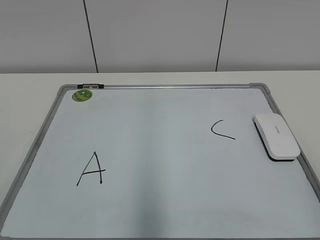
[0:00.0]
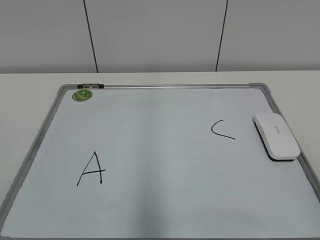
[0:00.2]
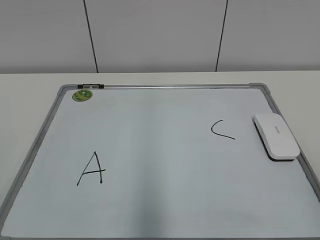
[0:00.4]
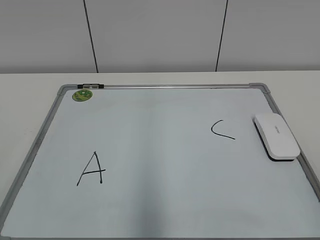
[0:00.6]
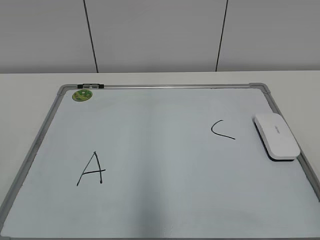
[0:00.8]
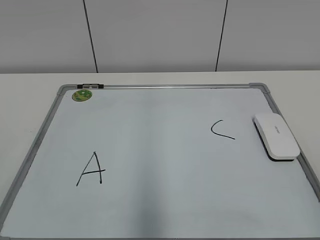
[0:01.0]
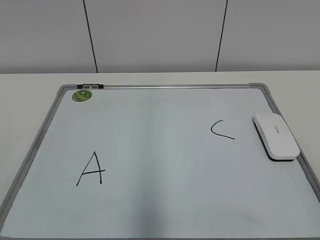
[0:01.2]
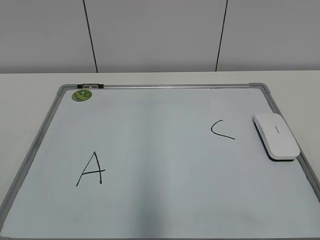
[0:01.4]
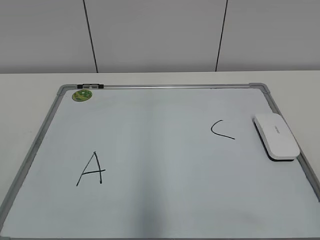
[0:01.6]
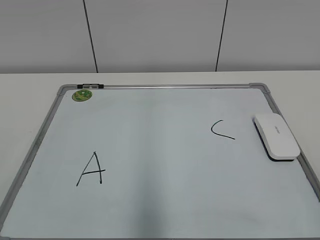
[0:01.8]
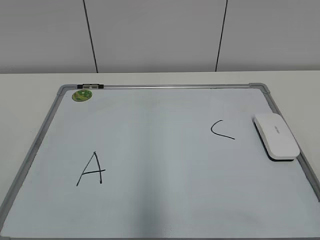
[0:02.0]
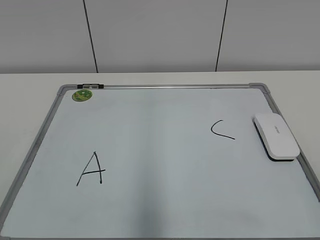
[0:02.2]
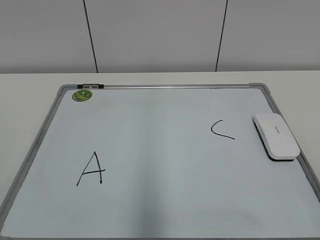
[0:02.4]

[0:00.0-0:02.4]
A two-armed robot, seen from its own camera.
Task of the whole recording: pick up the eraser on the blackboard and erase the letter "B".
0:00.0 to 0:01.2: The two grippers keep their place.

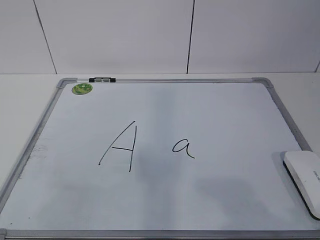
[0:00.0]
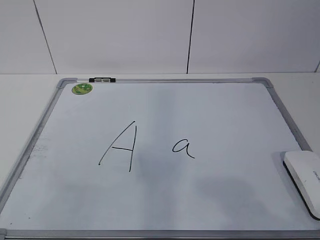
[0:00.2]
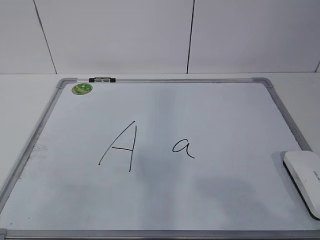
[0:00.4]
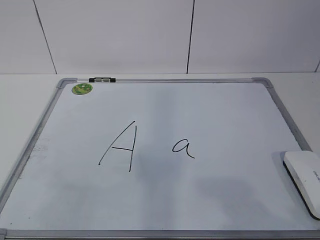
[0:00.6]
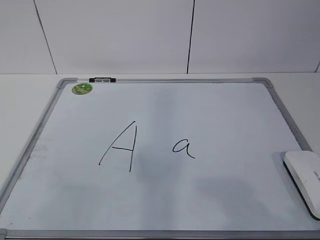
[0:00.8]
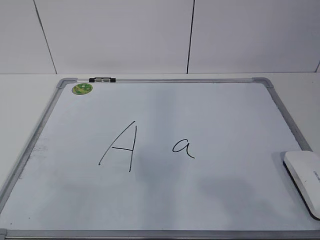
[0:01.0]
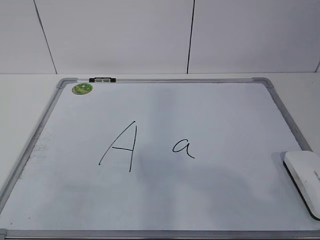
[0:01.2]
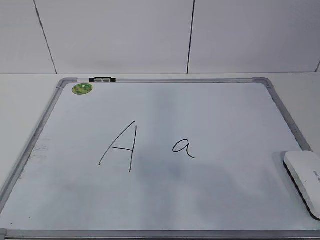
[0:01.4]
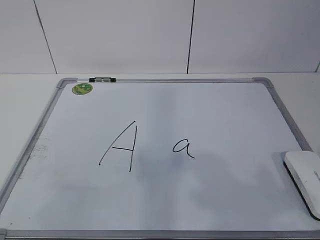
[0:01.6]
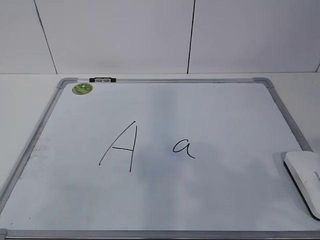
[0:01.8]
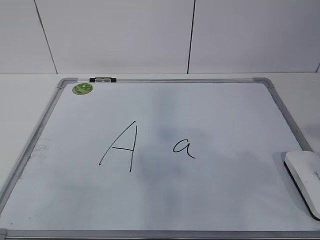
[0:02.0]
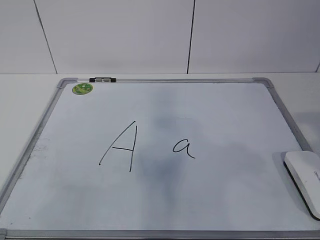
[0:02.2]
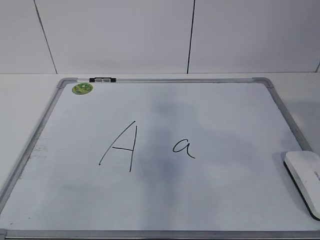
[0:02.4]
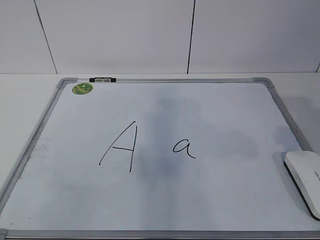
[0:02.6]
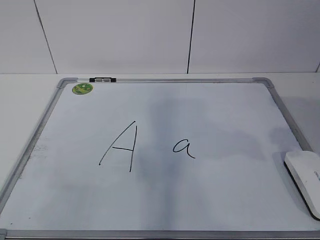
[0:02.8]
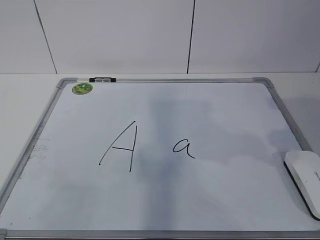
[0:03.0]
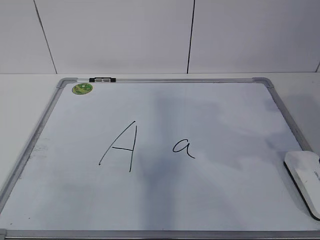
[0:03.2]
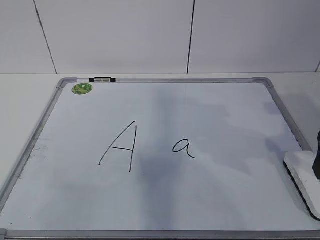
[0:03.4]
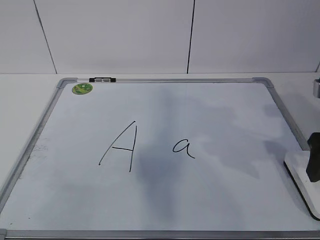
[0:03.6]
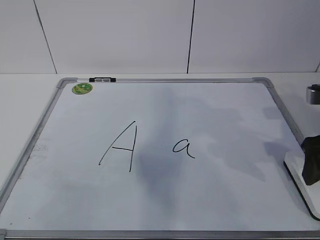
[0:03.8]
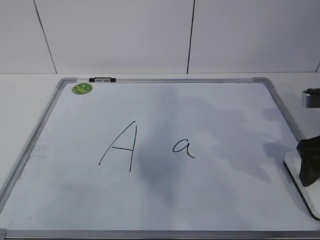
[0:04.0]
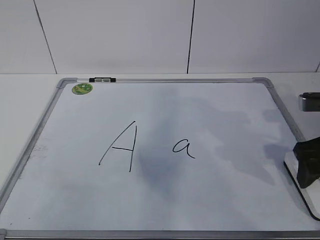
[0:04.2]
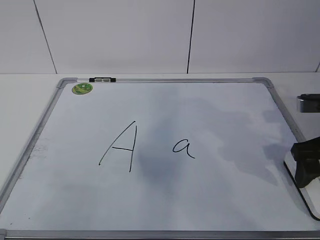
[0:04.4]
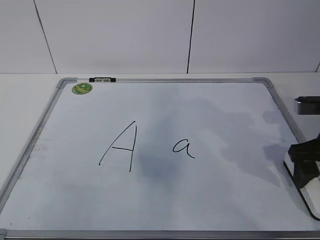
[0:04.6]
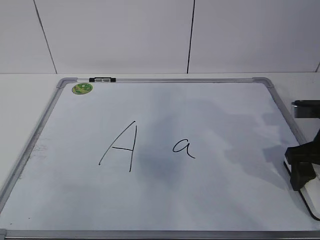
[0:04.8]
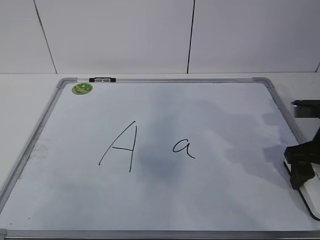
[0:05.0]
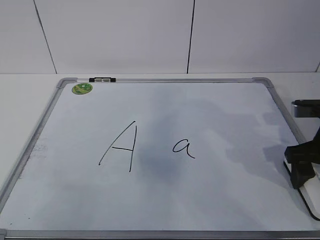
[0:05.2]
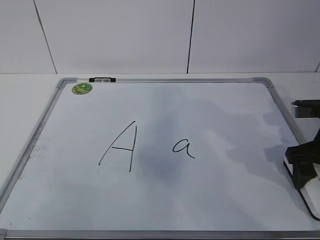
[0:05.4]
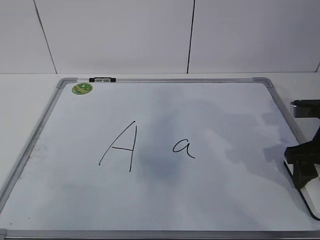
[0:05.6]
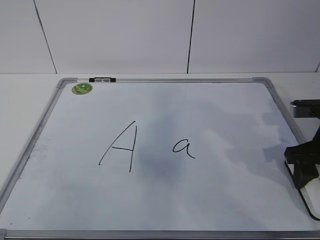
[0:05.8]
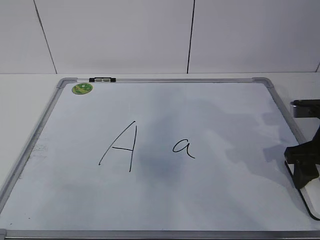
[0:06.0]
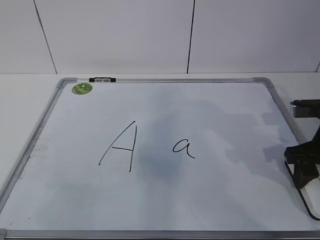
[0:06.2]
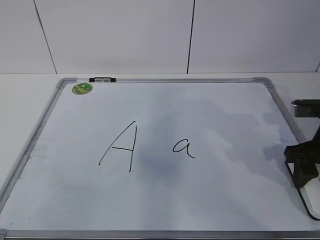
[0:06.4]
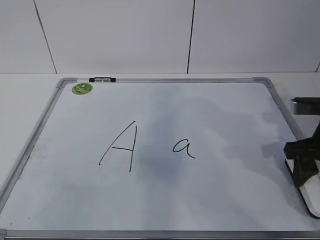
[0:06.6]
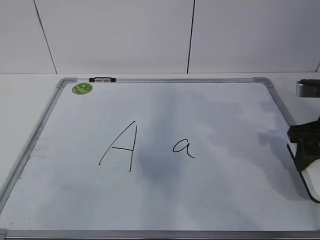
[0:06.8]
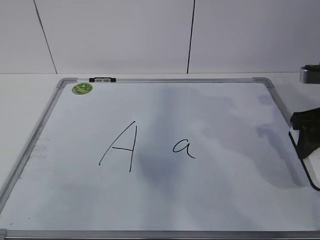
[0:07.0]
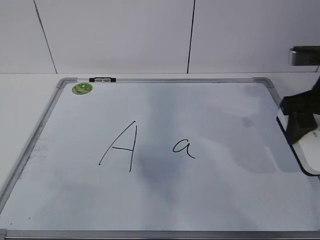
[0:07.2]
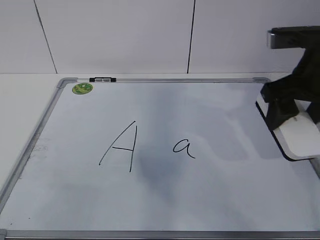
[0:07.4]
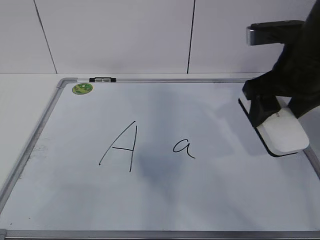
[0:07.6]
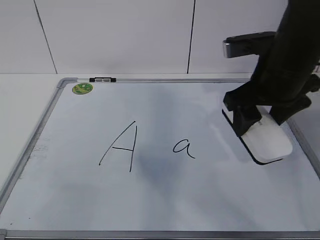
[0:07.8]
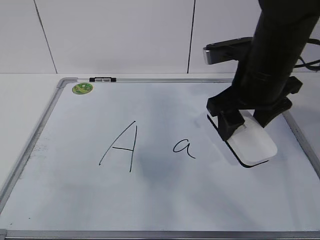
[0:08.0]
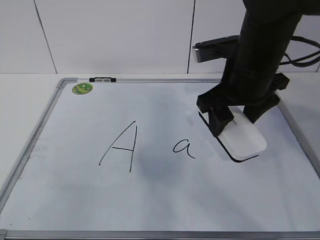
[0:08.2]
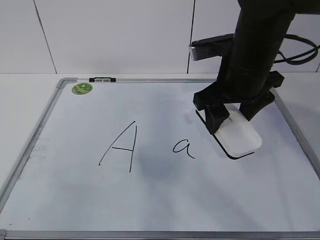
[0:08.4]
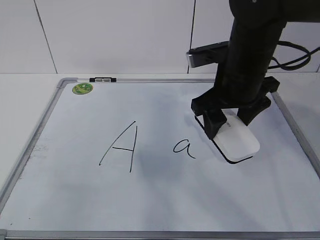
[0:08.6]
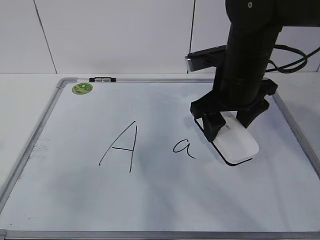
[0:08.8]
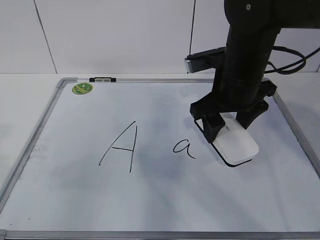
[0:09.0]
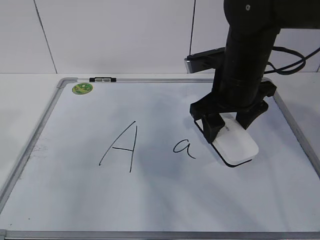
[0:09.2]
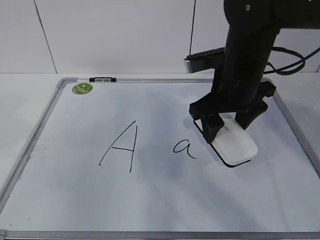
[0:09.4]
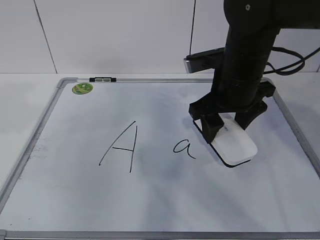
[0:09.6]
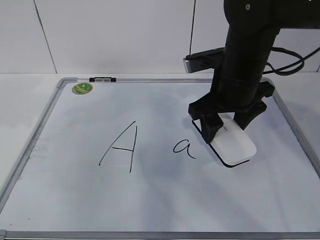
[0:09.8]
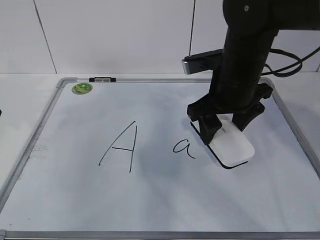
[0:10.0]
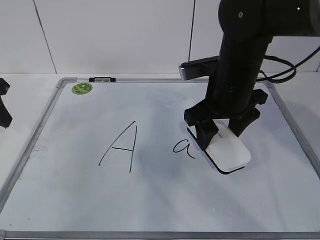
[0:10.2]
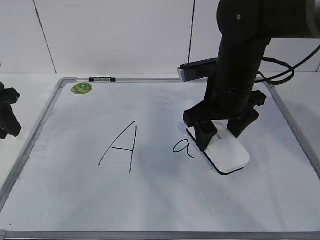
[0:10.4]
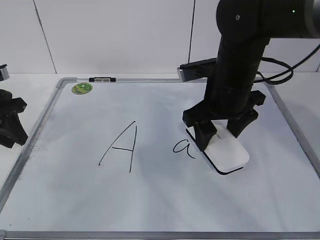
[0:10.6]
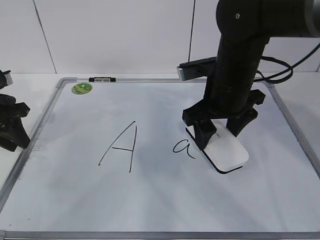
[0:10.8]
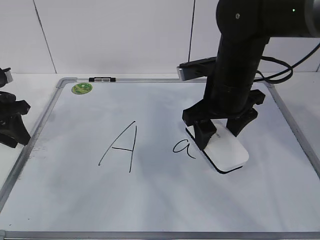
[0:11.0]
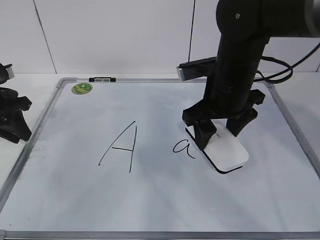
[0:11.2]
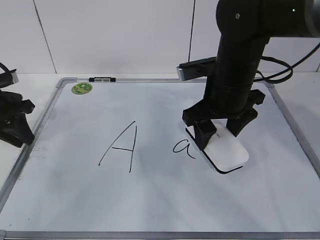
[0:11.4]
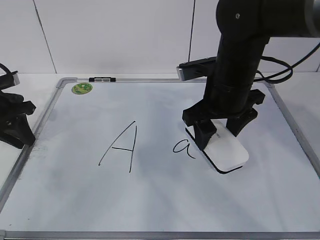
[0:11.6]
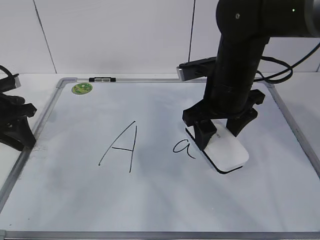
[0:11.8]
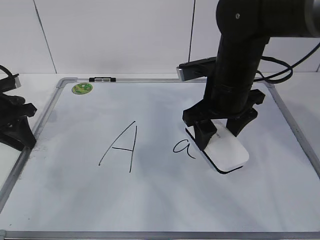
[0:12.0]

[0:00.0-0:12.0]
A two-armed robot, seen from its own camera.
Task of the whole recording: pick up the eraser on the blackboard and erase the letter "a".
Step, 0:05.0 to 0:10.2: Hold the drawing board steady with your left hand.
0:03.0 to 0:04.4: The right gripper is displaced downward and forward by about 10 cm.
0:04.4 to 0:06.0: The right gripper closes.
0:06.0 to 0:07.6: The right gripper heads upward and to the left, covering about 15 cm.
0:07.6 to 0:09.0: The right gripper travels to the left by approximately 5 cm; the left gripper travels forward by approximately 10 cm.
0:09.0 to 0:10.4: The left gripper travels forward by roughly 25 cm.
0:10.4 to 0:12.0: The left gripper travels downward by some 5 cm.

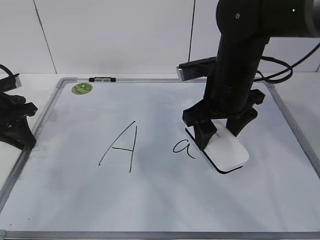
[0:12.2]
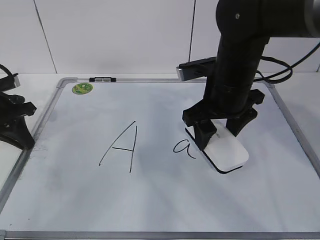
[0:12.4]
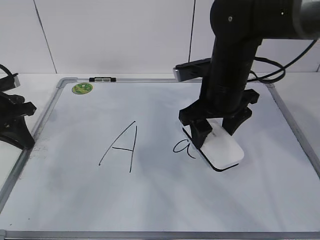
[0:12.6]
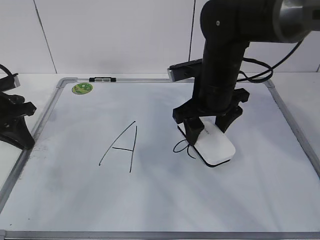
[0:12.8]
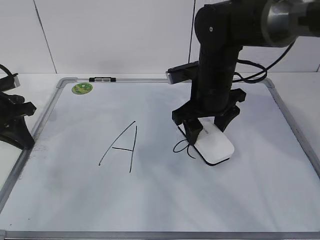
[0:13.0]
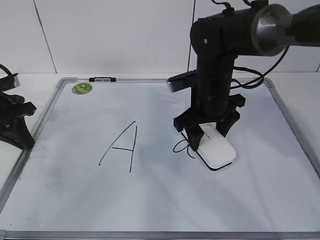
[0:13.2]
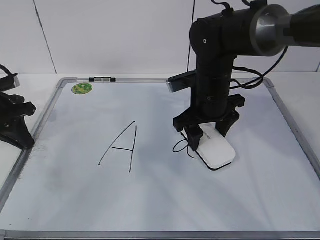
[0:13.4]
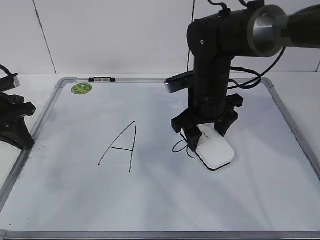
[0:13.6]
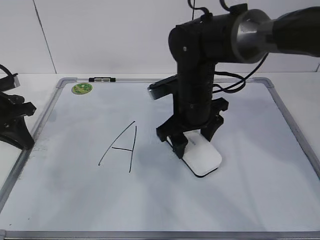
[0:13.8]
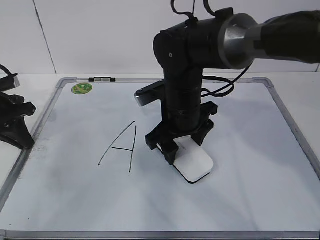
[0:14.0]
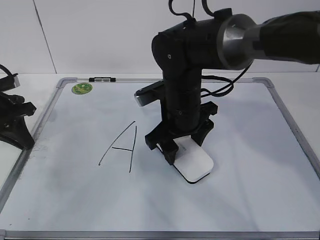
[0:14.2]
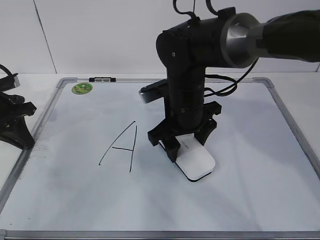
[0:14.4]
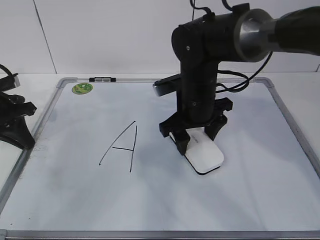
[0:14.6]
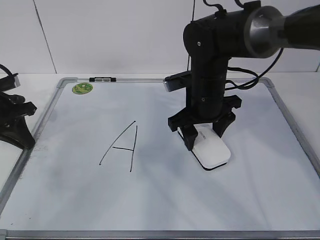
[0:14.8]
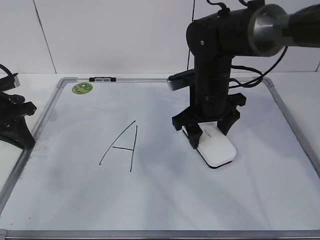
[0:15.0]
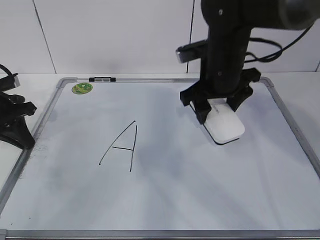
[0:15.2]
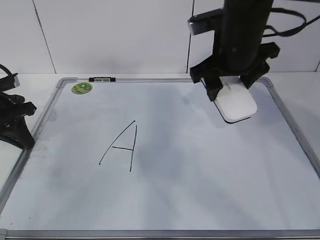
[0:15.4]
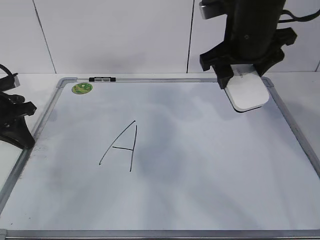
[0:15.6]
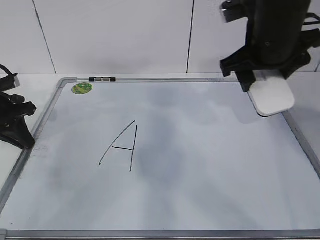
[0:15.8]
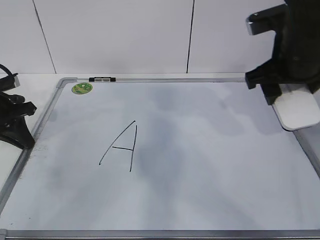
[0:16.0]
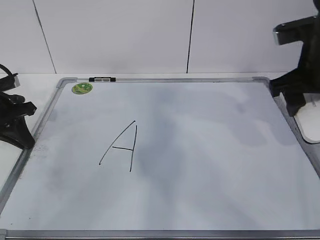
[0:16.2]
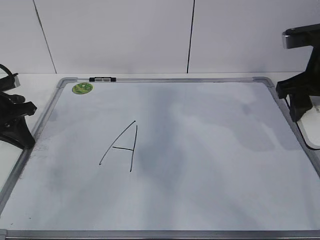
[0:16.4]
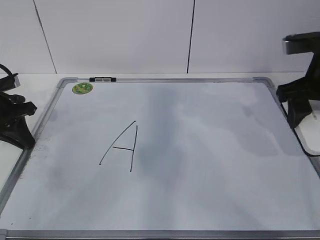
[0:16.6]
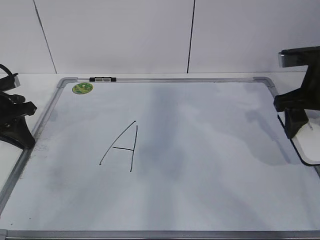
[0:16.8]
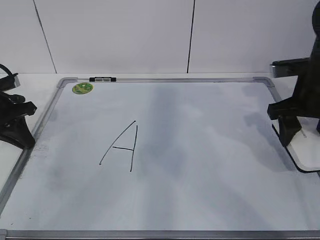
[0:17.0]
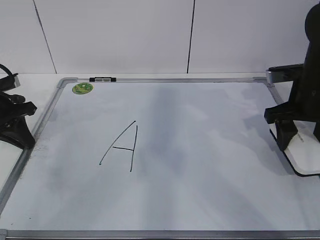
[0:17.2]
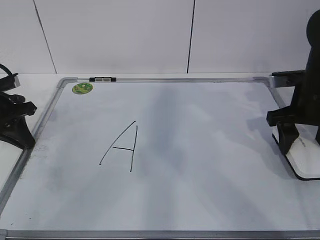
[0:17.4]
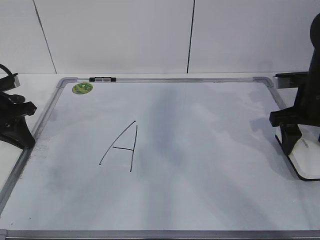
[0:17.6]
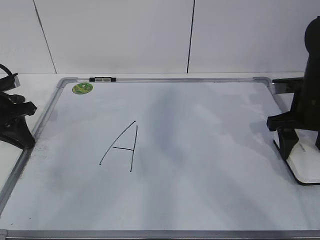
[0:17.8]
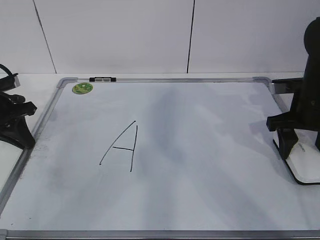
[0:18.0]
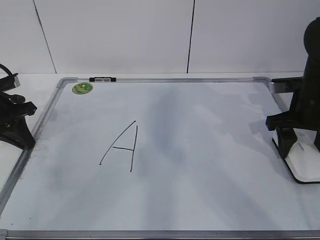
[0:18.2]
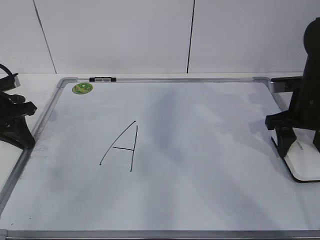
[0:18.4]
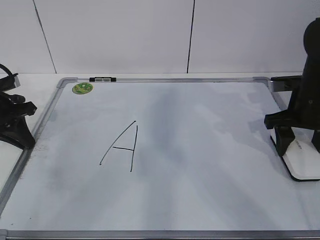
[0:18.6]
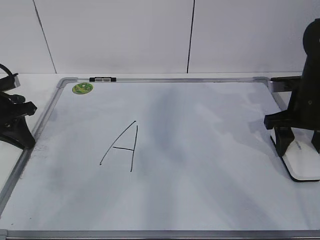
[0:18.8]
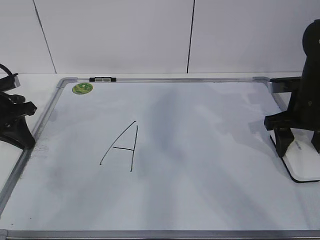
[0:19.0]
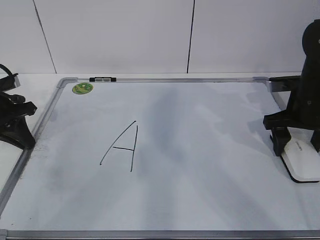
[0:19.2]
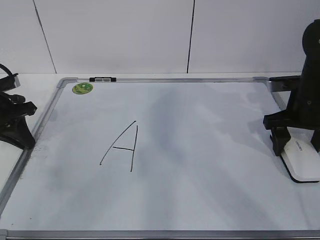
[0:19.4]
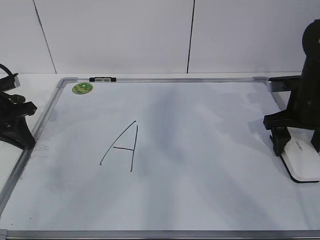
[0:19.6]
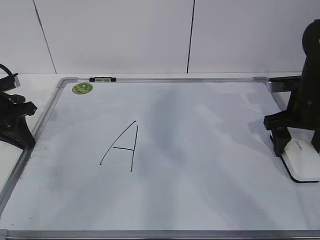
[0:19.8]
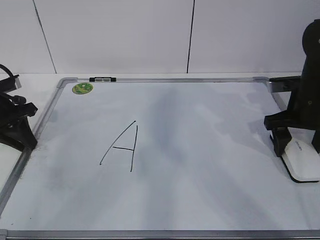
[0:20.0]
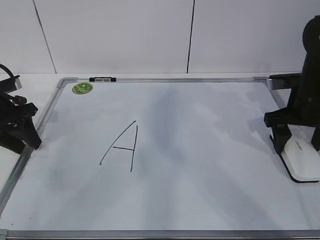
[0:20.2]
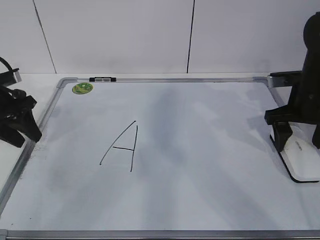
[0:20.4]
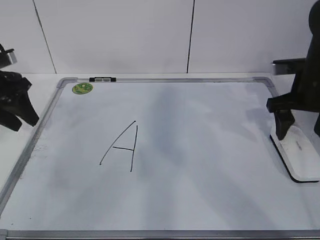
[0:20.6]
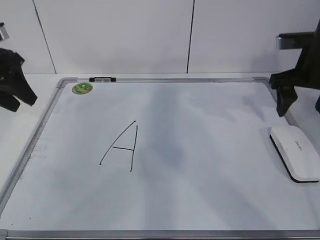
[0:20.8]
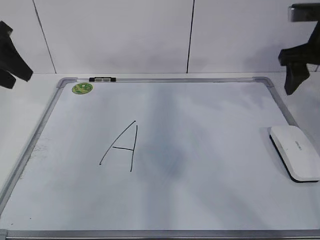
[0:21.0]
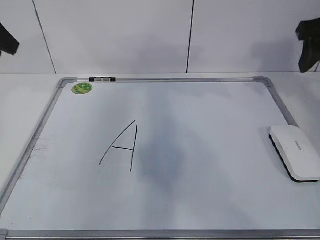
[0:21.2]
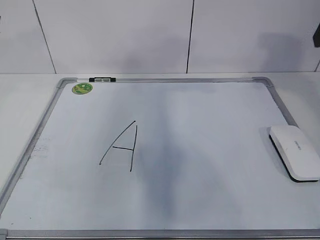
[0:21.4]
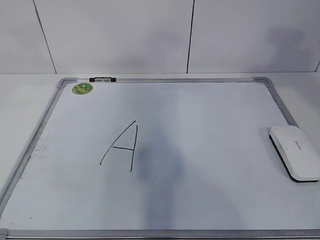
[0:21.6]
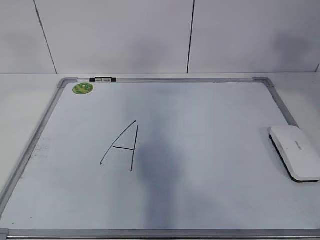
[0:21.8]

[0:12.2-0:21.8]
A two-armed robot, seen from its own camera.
Task of the whole recording: pick up the eraser on the blackboard and erase the letter "a".
Step, 0:12.6 to 0:15.8: Put down the eraser with your right hand.
0:12.2 to 0:13.8: The right gripper is displaced to the left by roughly 5 cm.
0:13.8 to 0:15.4: The right gripper moves upward and to the right, approximately 10 cm.
0:15.4 to 0:17.0: The right gripper shifts some 15 cm to the right and downward.
0:17.0 to 0:18.6: The grippers make only small movements.
0:18.6 to 0:20.2: The right gripper opens. Meanwhile the left gripper opens up.
0:20.2 to 0:21.8: Both grippers move upward and backward, some 35 cm. The right gripper closes up.
